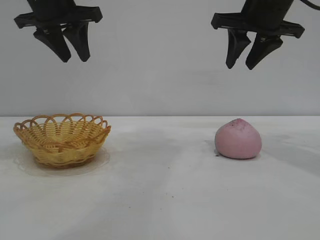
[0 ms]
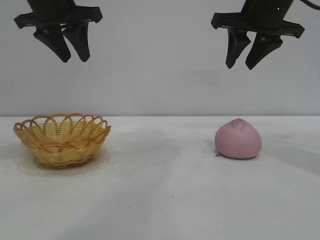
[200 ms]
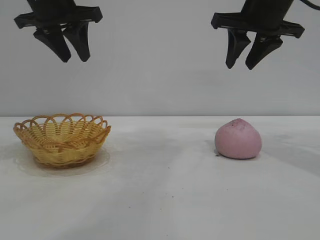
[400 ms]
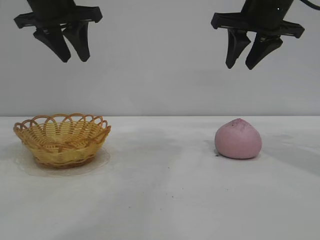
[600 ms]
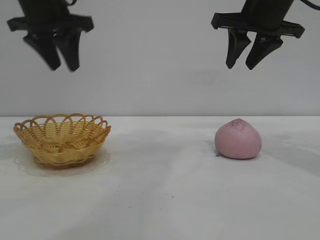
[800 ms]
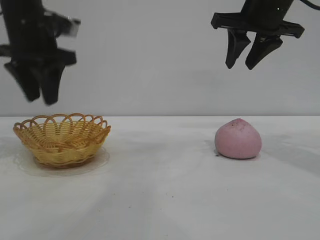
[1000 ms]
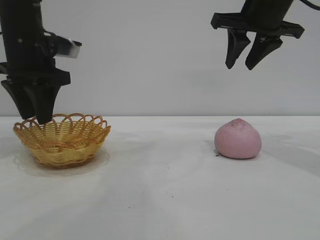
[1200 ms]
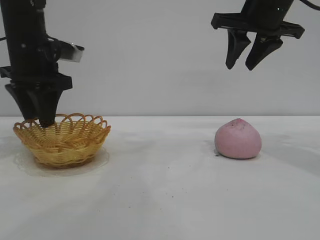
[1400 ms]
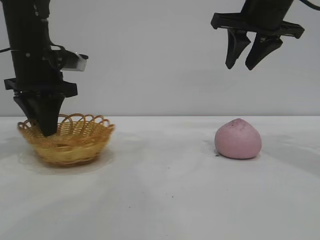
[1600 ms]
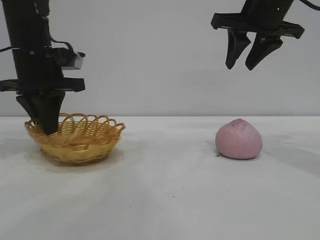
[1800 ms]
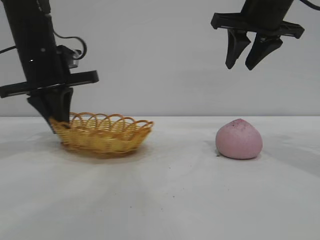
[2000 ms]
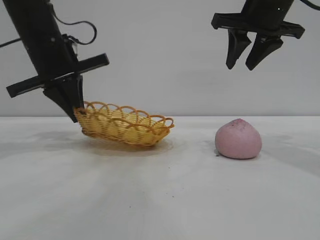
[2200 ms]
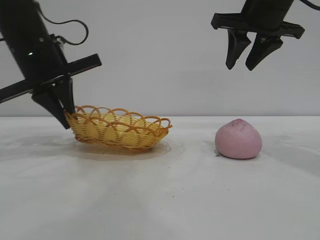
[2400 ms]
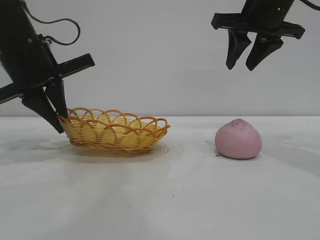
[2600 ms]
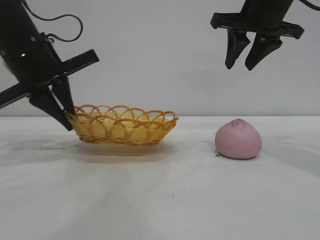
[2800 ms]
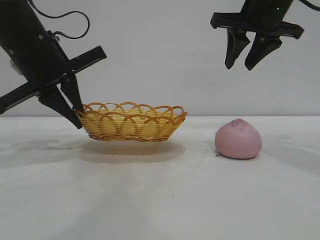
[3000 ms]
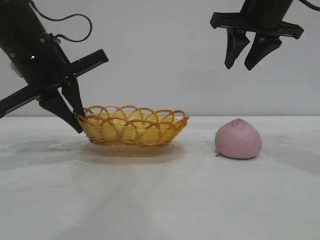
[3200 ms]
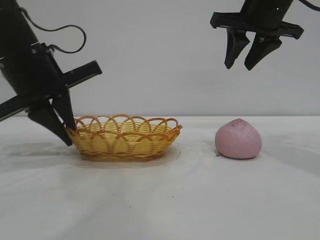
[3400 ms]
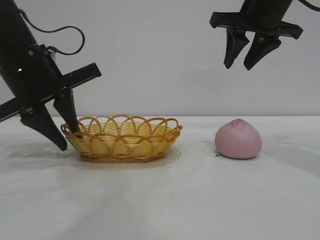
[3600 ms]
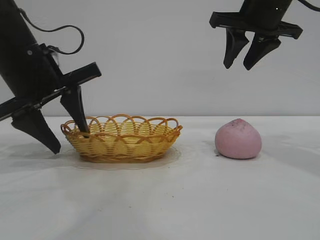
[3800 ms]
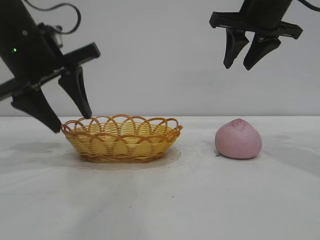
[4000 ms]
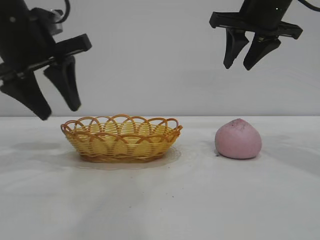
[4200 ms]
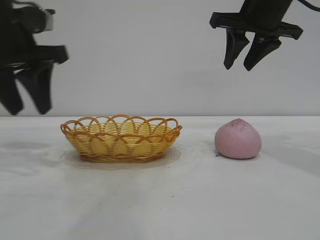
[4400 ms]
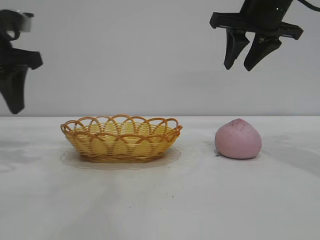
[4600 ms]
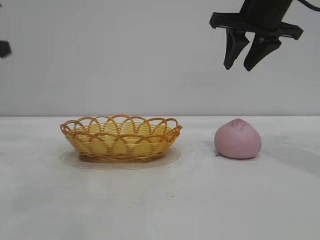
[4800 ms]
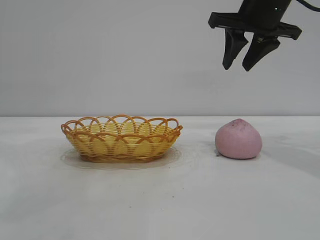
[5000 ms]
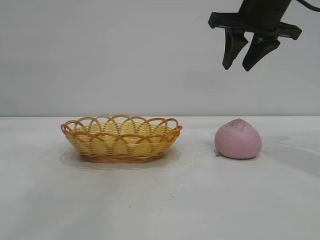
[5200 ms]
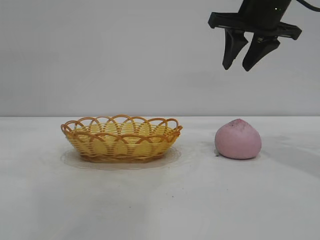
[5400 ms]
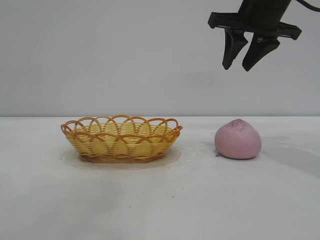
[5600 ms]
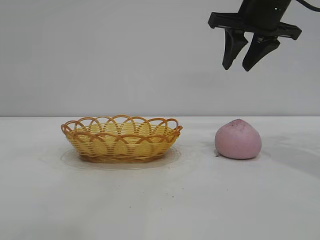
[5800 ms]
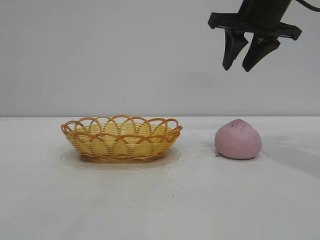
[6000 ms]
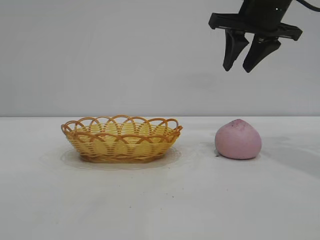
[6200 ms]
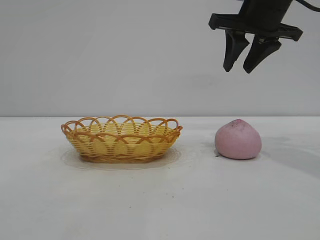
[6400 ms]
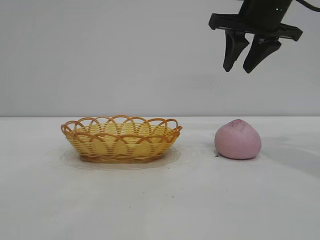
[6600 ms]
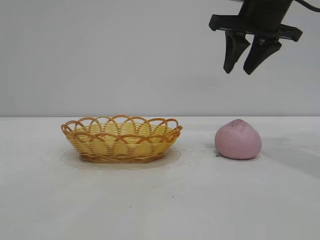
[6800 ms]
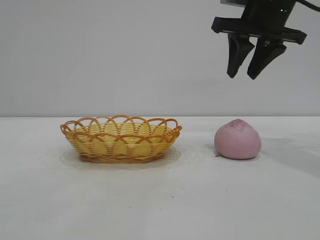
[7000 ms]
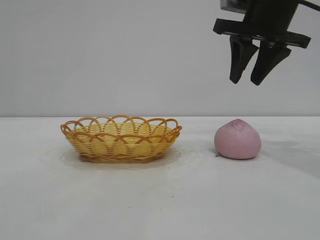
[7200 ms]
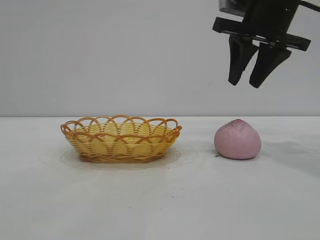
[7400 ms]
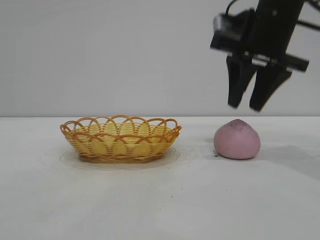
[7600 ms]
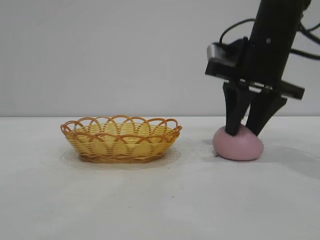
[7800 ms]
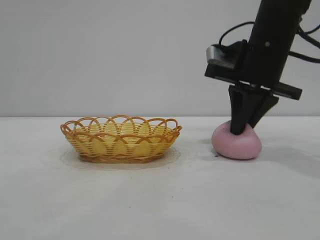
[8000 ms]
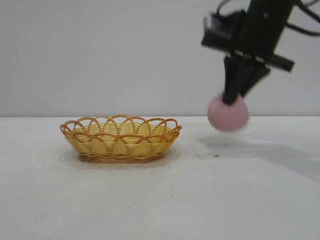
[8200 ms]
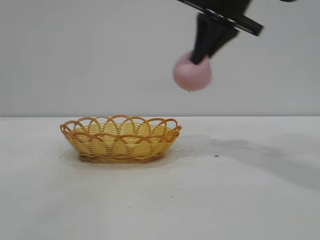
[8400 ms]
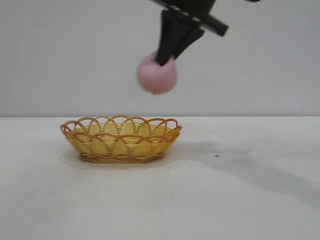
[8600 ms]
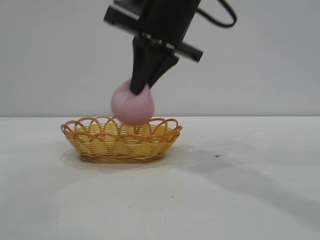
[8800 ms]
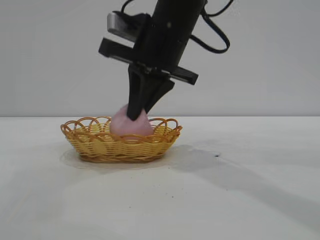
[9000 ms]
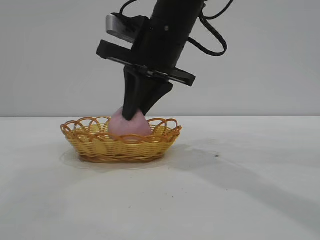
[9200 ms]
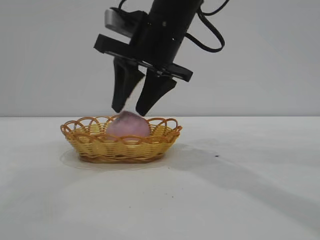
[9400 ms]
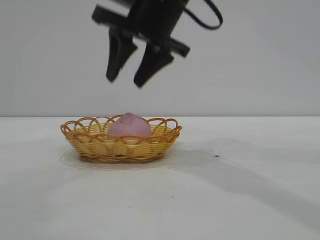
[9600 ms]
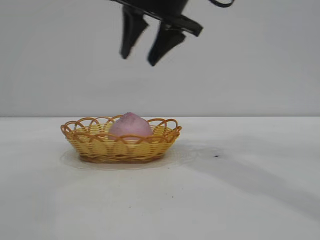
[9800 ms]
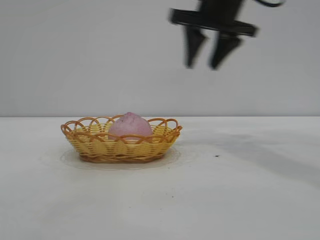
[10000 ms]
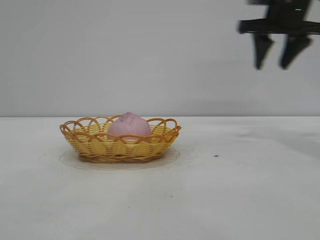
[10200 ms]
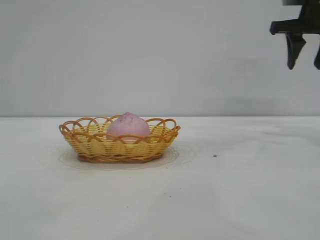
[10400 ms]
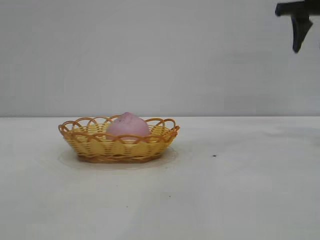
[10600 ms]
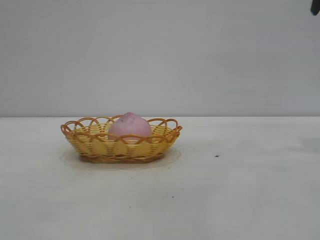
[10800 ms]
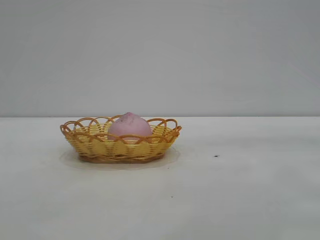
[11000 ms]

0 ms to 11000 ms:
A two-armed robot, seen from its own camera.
Task of the whole recording: pick up the peach and put it into the basket.
Step, 0 ms to 4200 ms: Move the basket to the center of view.
Step, 4400 ms to 8200 ms: Pick up the peach.
Step, 8400 ms to 9600 ms: place the peach into the basket.
